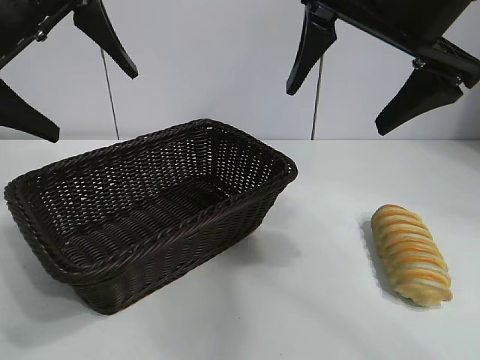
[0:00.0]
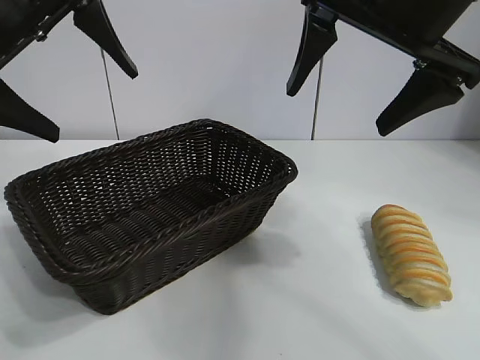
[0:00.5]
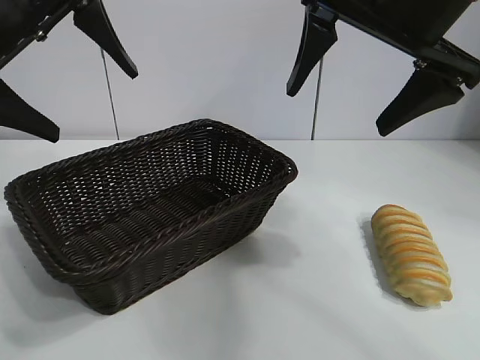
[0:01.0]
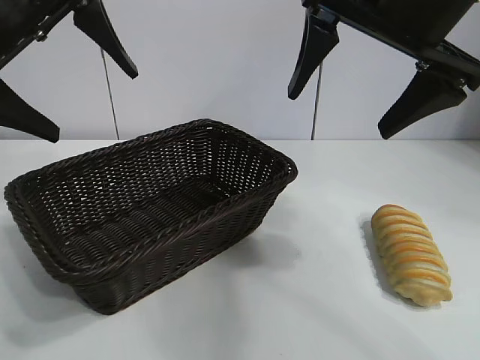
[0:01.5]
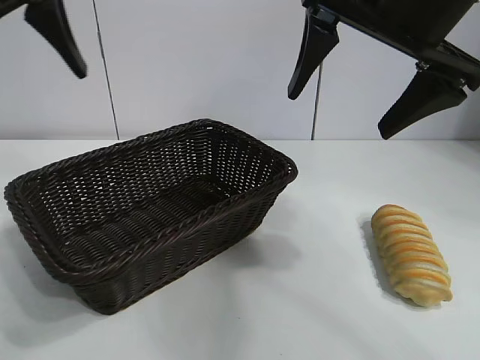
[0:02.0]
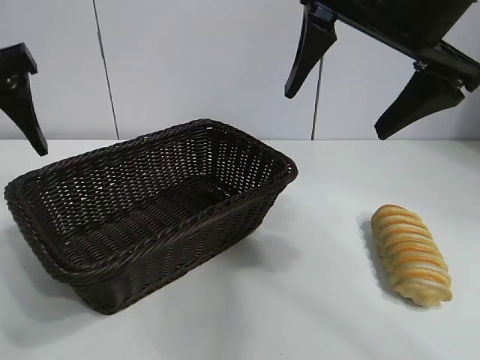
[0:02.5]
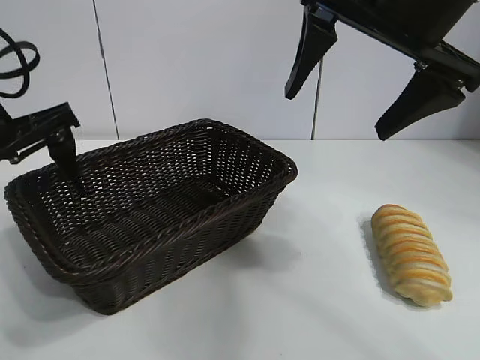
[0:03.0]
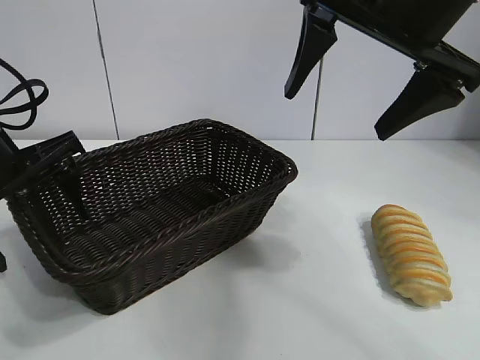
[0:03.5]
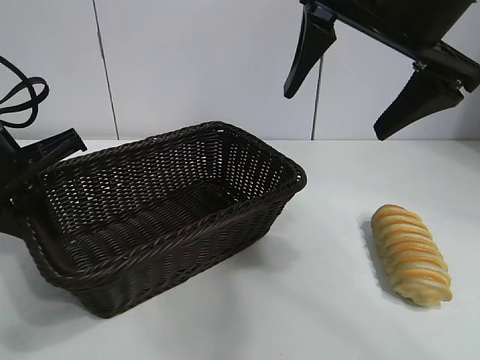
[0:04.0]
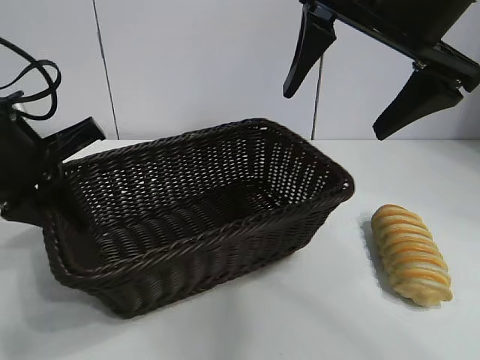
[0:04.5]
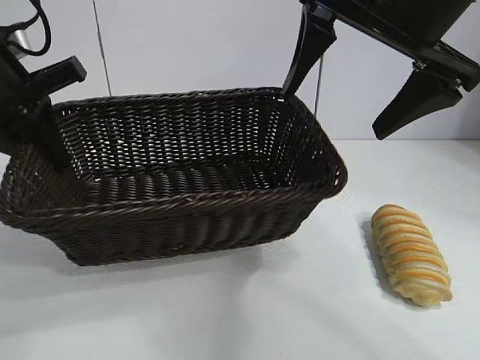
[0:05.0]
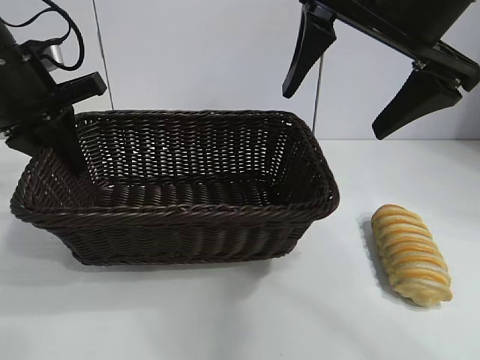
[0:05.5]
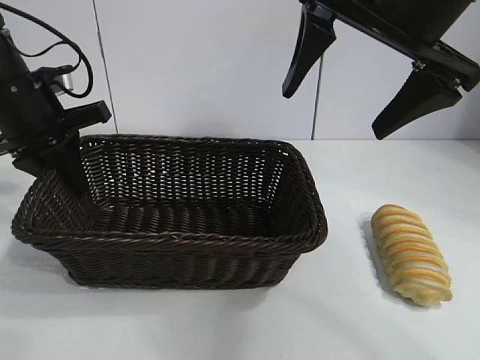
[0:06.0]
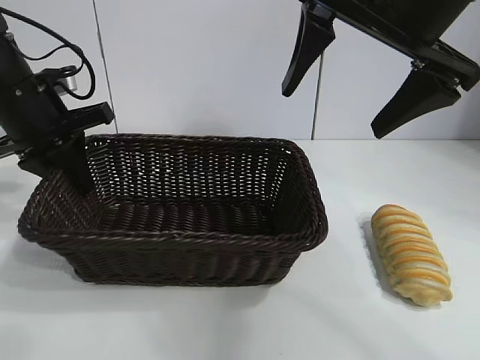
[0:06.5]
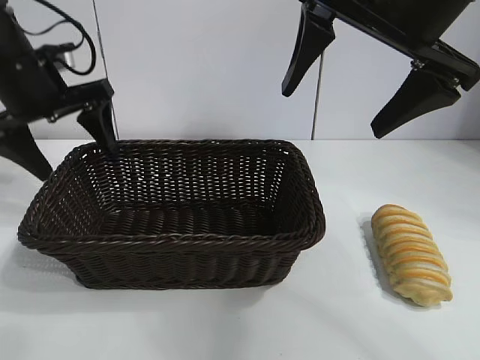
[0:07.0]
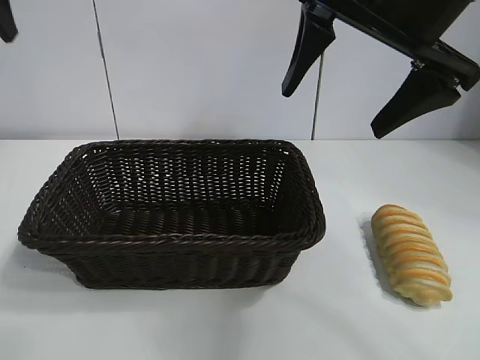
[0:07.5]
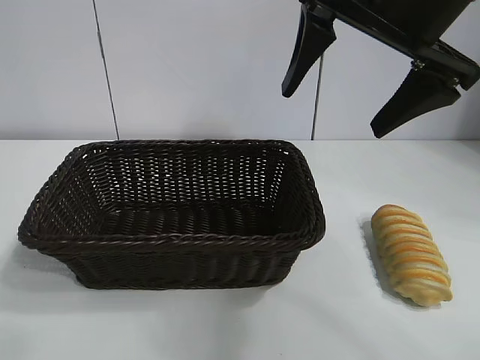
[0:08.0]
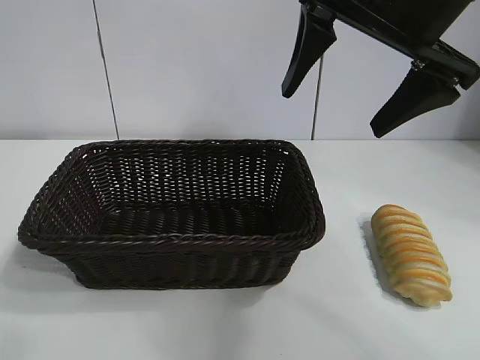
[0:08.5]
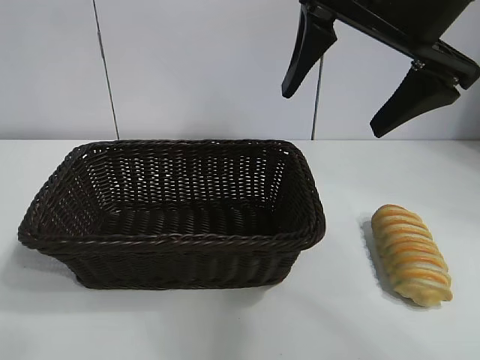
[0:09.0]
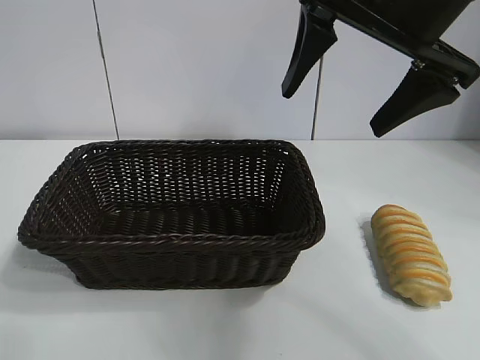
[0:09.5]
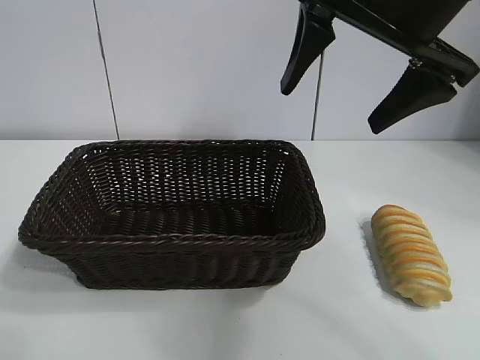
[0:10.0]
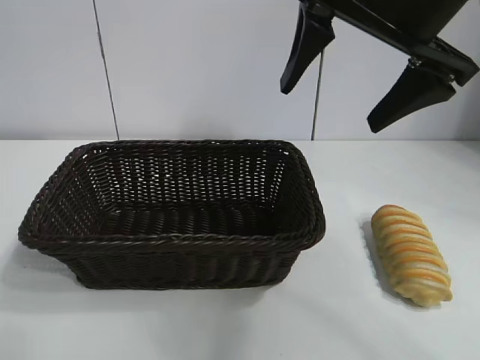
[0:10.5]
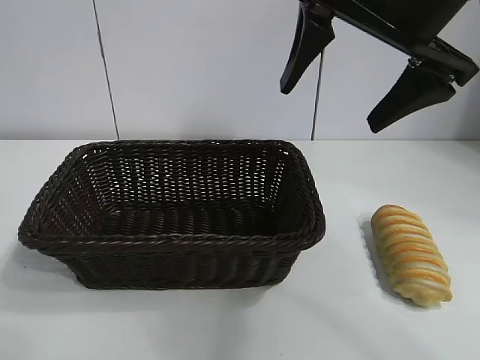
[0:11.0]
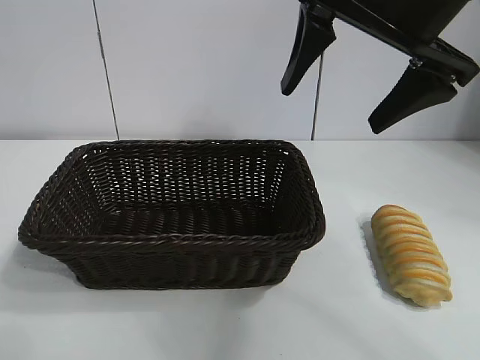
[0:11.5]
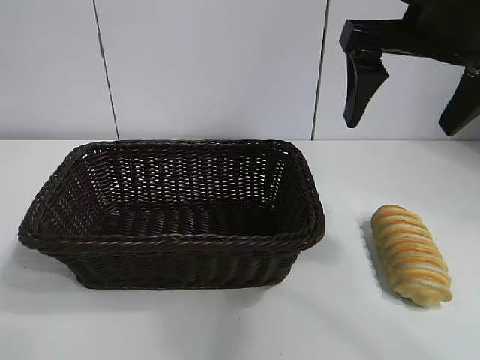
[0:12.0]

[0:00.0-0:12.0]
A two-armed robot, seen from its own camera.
Task of the whole recording: pick up the long bread and put it into the basket.
Step, 0:02.0 to 0:04.0: Grasp the basket with the left gripper.
Step, 0:04.5 to 0:06.5: Place the basket in the center of the table with the left gripper.

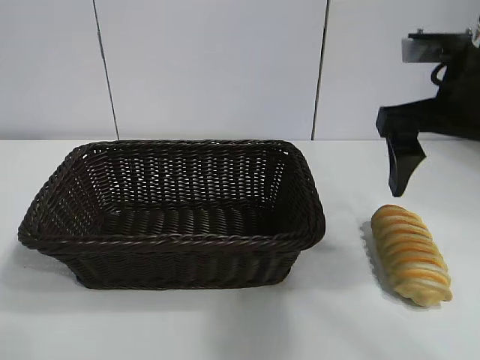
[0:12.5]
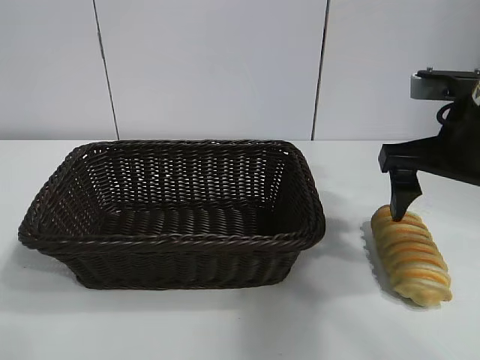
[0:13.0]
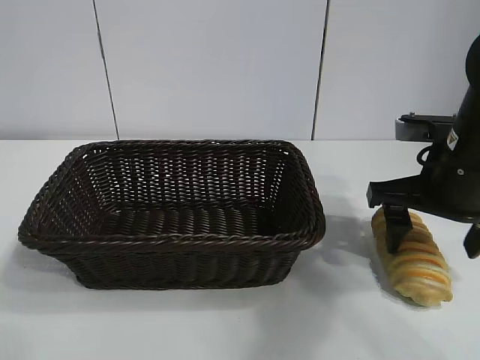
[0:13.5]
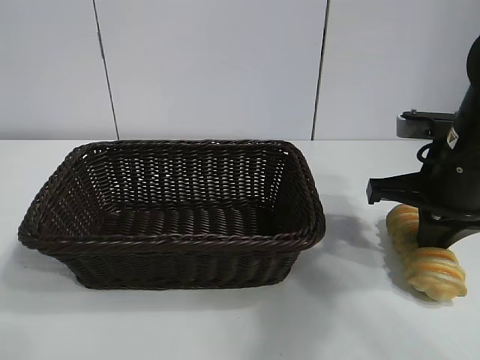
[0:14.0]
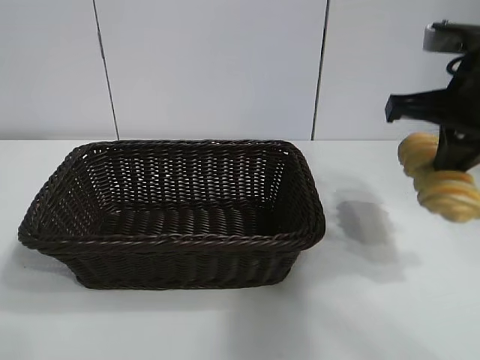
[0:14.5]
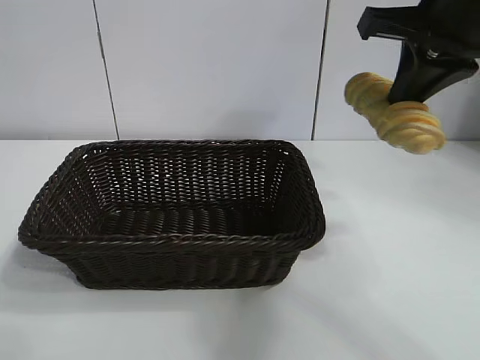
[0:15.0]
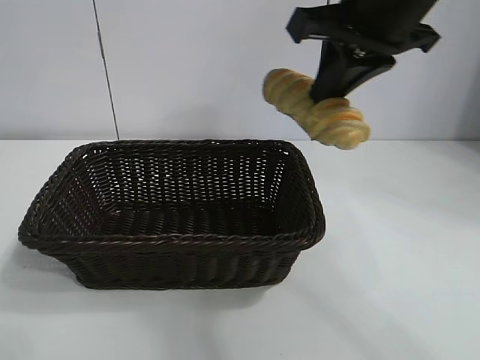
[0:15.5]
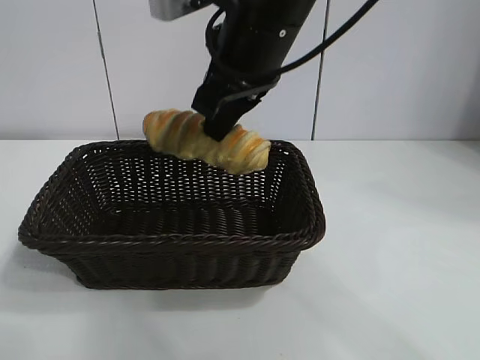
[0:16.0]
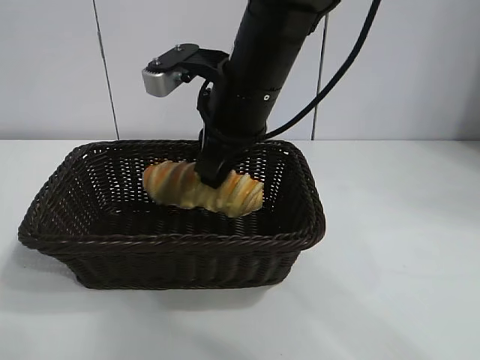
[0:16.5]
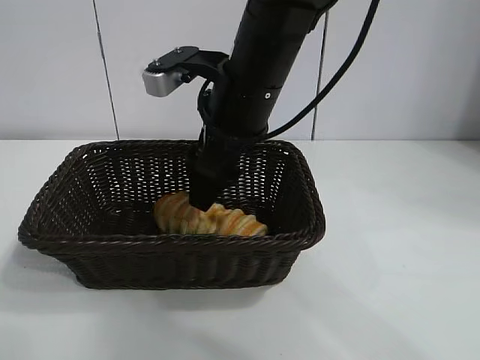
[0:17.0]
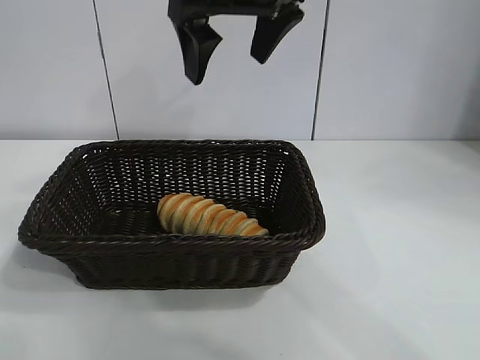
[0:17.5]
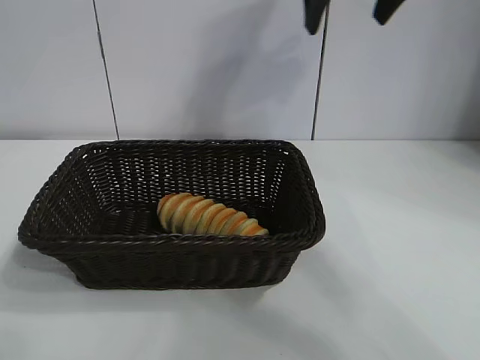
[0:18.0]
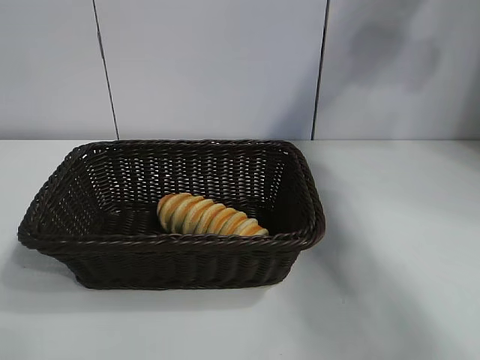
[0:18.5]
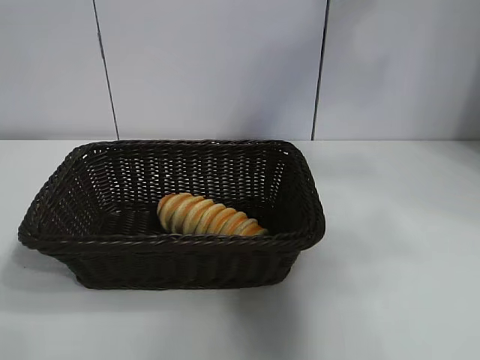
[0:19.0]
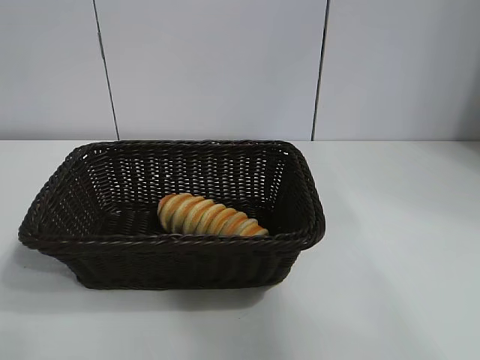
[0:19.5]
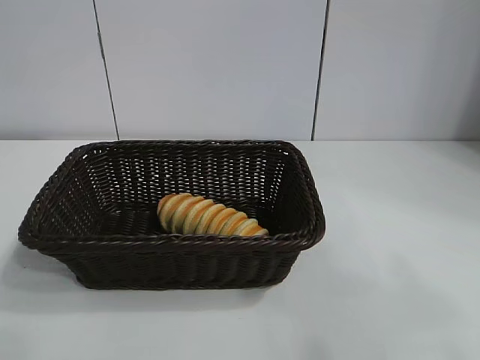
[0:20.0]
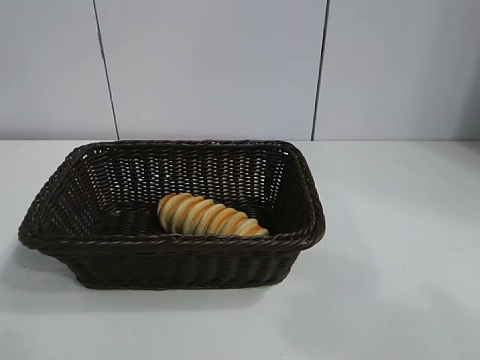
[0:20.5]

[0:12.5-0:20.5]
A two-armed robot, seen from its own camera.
Task of the whole recording: pick up the long bread and put it into the basket.
Step, 0:14.5 to 0:17.0: Place the long bread in the basket with right gripper.
